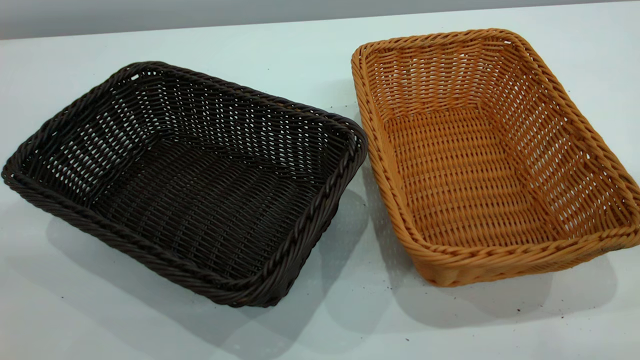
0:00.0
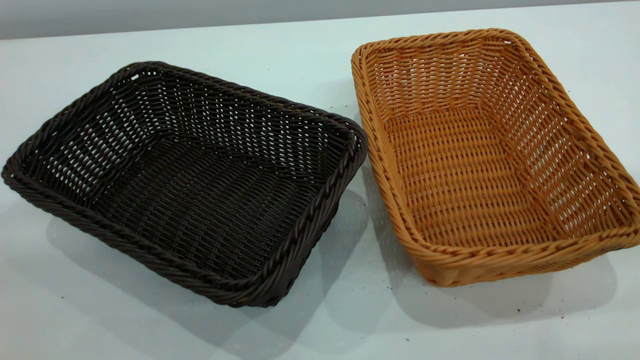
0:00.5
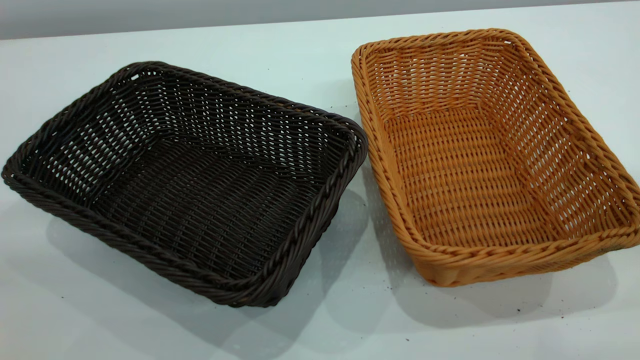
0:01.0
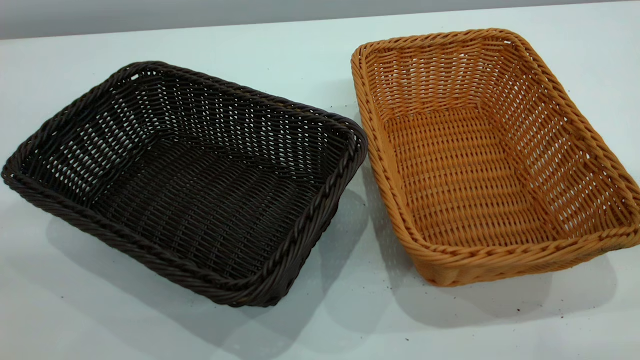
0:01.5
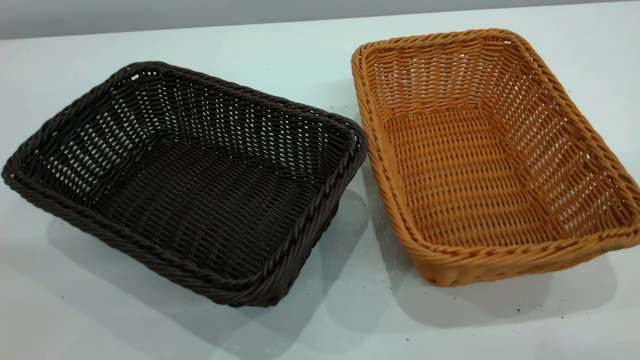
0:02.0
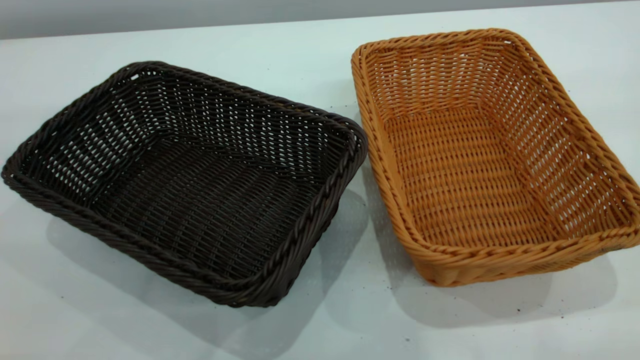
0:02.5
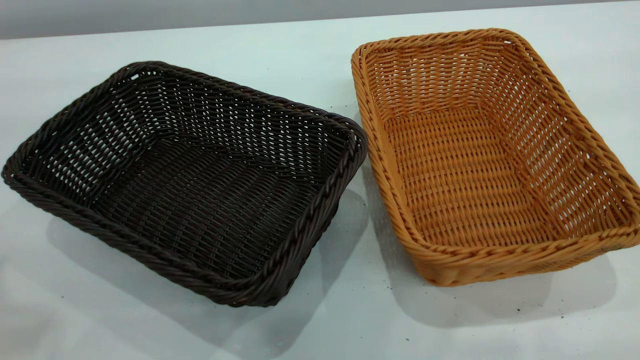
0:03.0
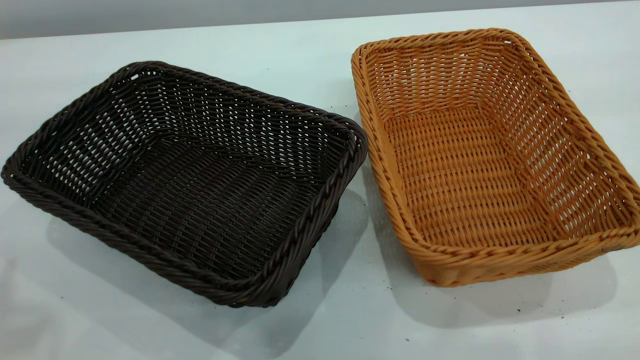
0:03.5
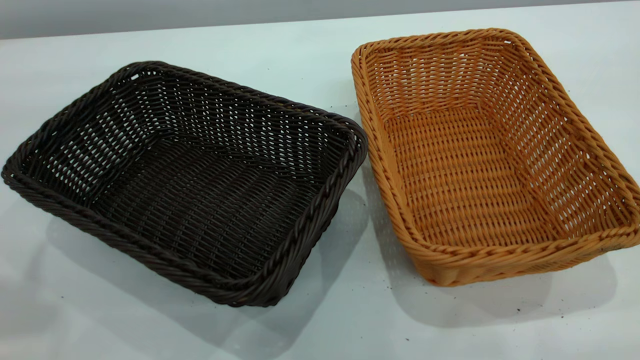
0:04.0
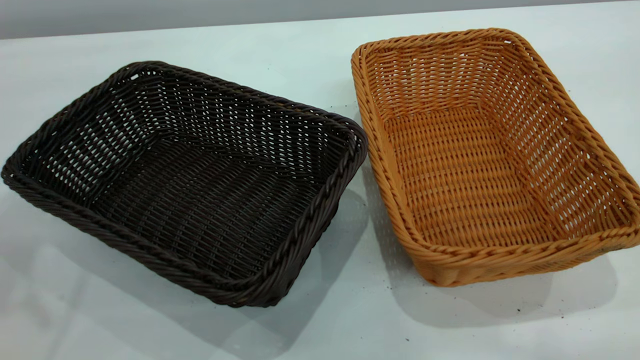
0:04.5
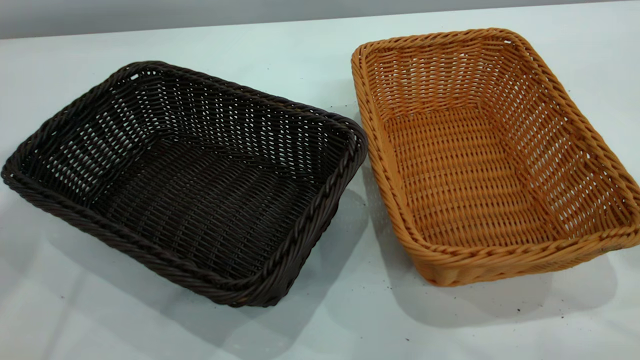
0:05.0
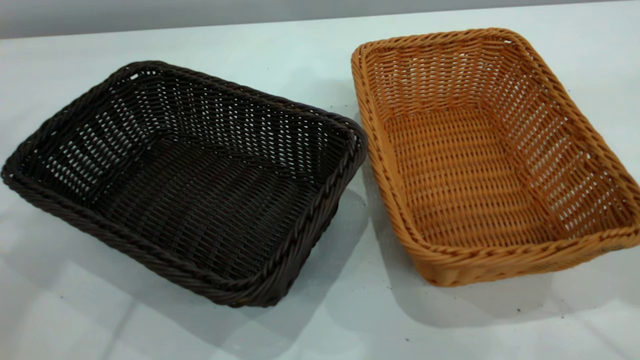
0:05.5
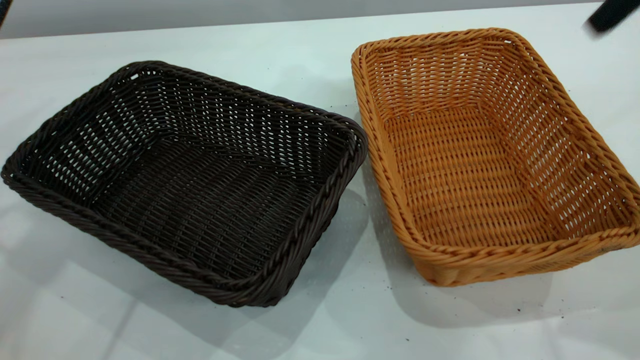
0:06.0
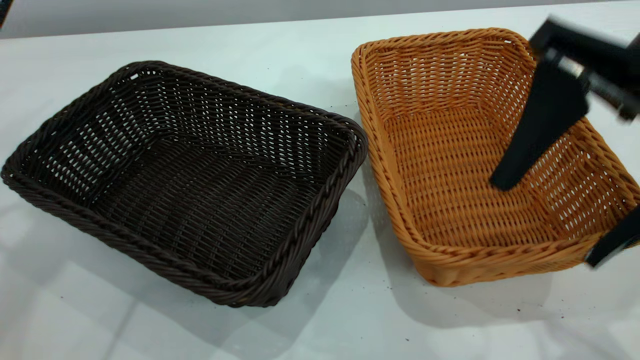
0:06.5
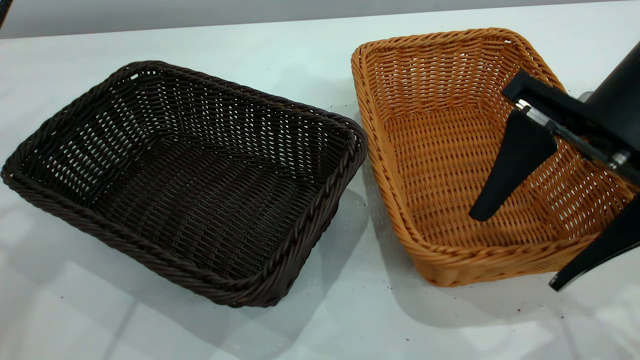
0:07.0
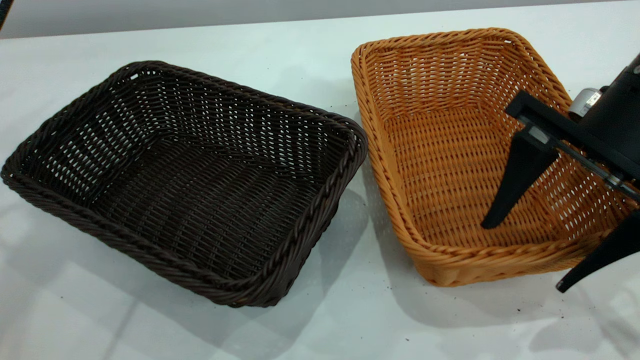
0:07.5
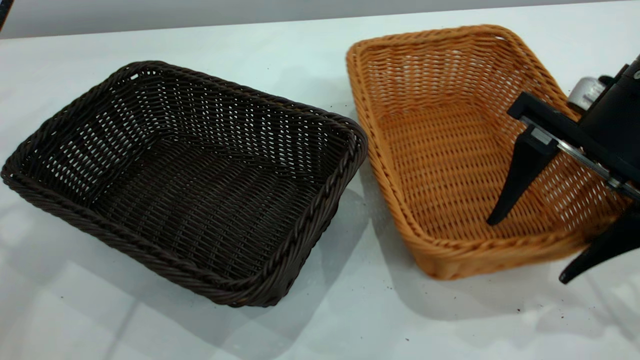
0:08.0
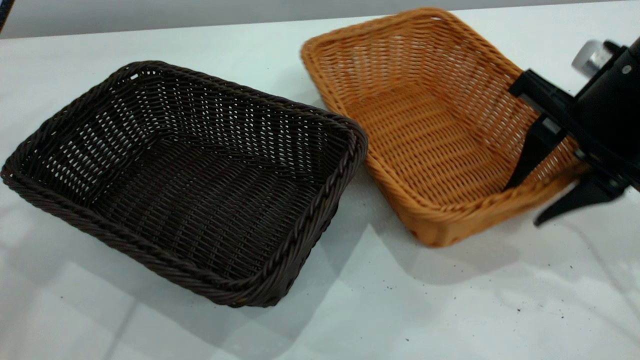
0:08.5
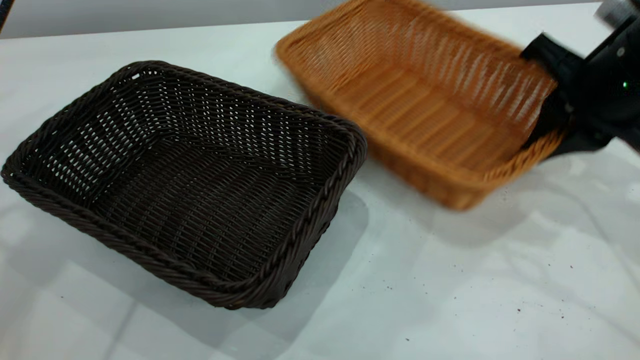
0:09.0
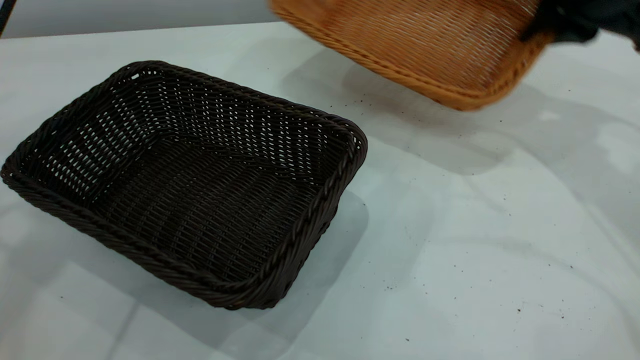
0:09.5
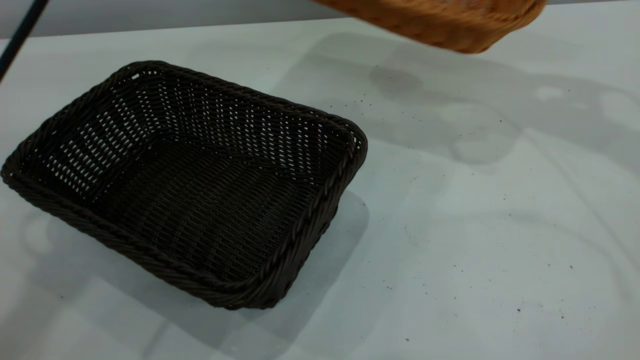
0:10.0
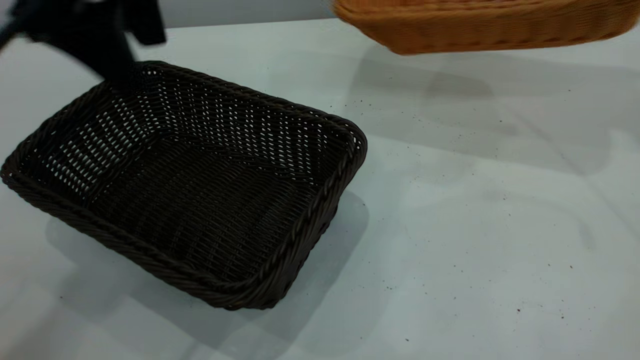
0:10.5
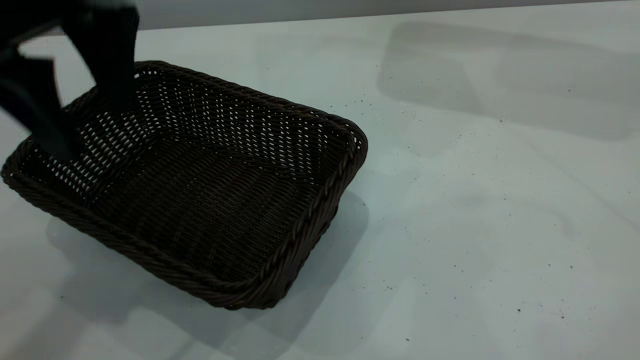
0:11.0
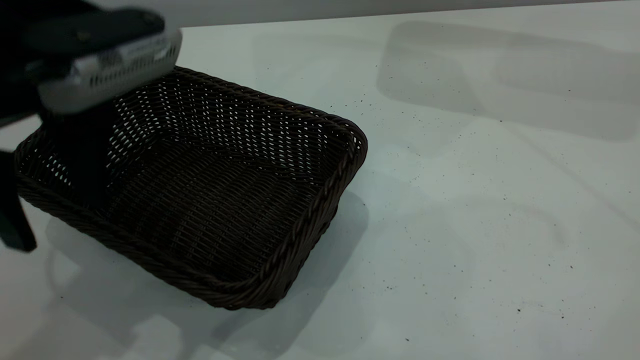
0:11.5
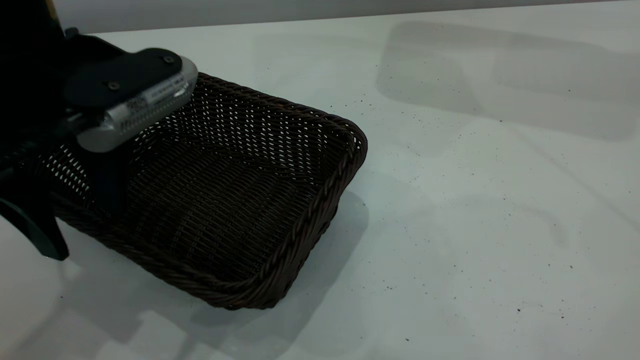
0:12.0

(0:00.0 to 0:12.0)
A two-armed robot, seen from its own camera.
Task of the whole recording: the left gripper grasp the black basket and place it in the center of the table, the right gripper grasp the brown basket and place it inside the black one.
Step, 0:00.0 - 0:09.0: Pick up the light basket with the right gripper.
0:04.0 - 0:06.0: The left gripper shifts about 25 cm forward. The right gripper heads downward, forward and to the left, covering approximately 15 cm.
0:06.0 - 0:08.0: The right gripper moves downward, some 15 cm.
0:08.0 - 0:10.0: The right gripper travels forward, upward and to the right by some 20 cm, and closes, while the left gripper goes approximately 5 cm to the right.
0:10.0 - 0:12.0: The right gripper heads upward, covering some 15 cm, while the left gripper travels backward and downward by roughly 15 cm.

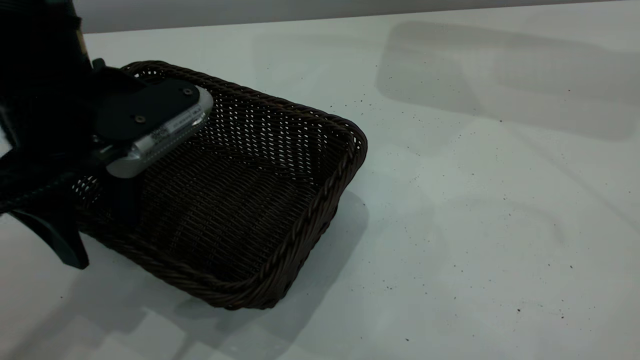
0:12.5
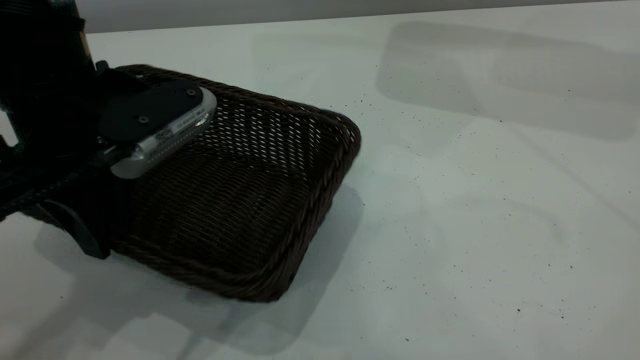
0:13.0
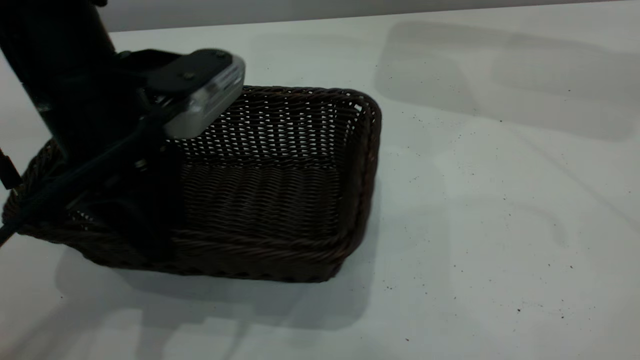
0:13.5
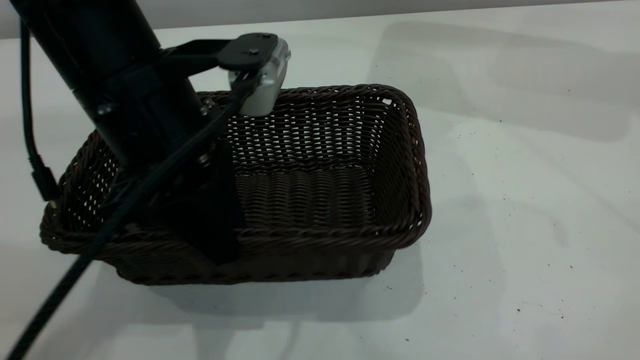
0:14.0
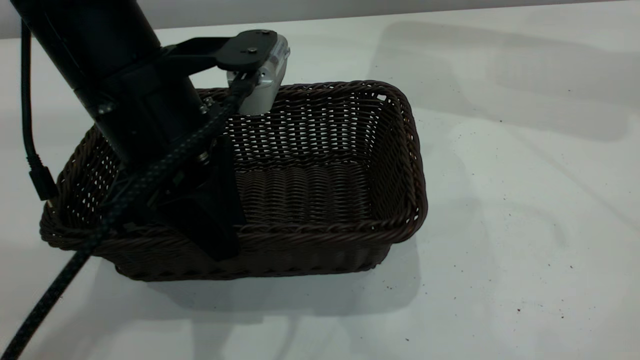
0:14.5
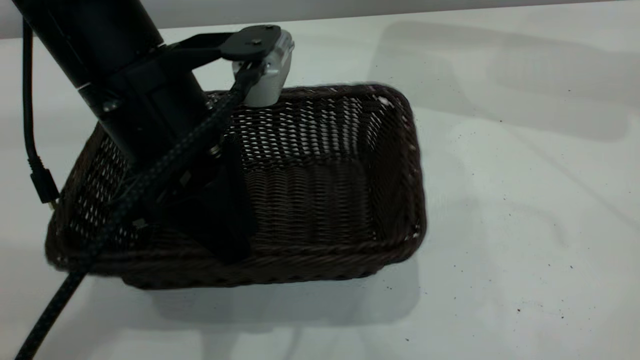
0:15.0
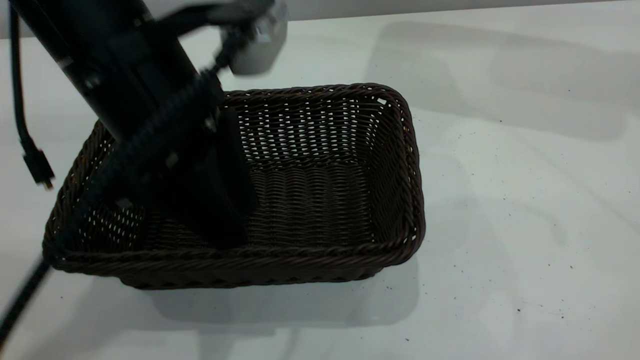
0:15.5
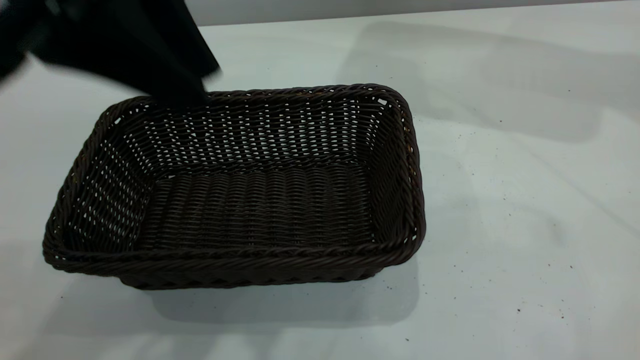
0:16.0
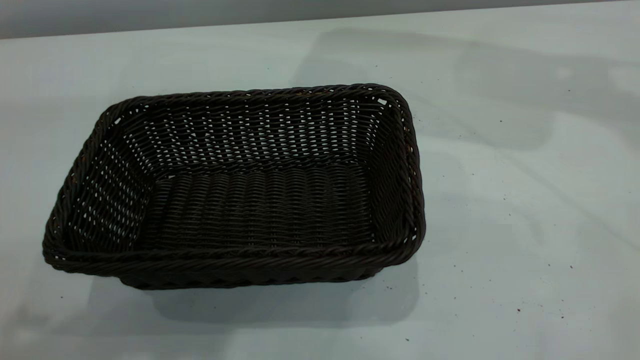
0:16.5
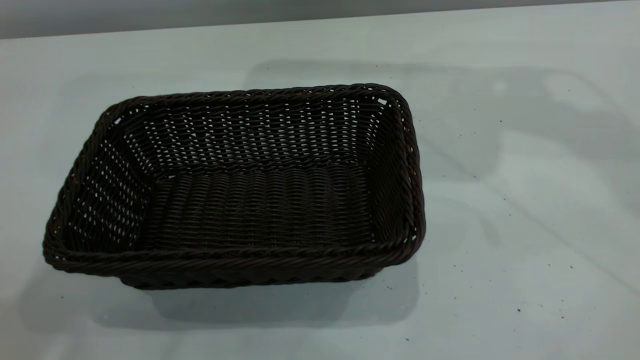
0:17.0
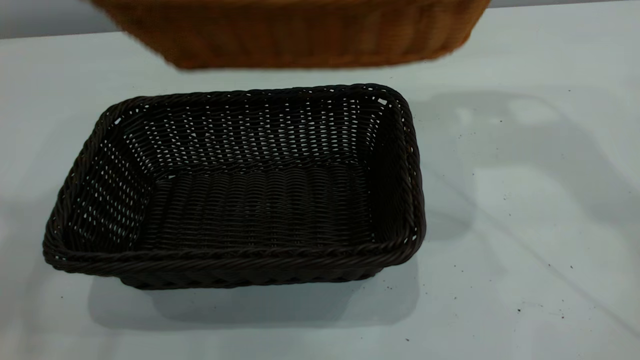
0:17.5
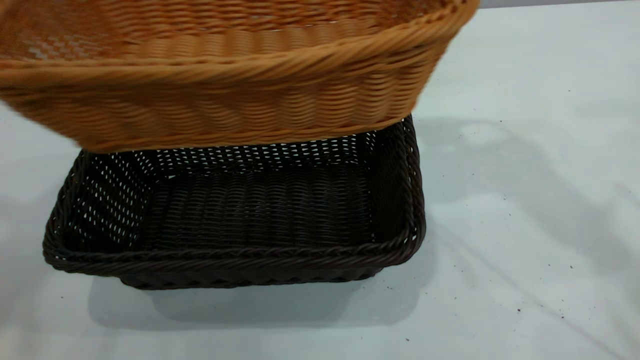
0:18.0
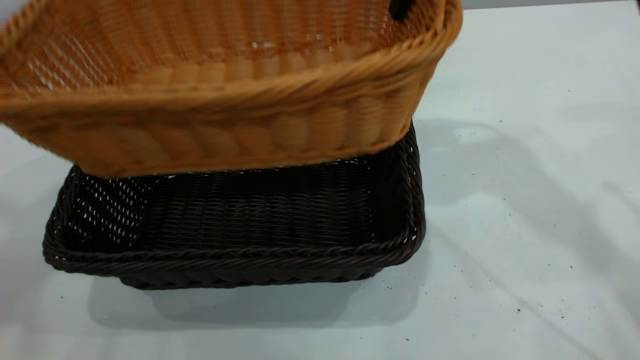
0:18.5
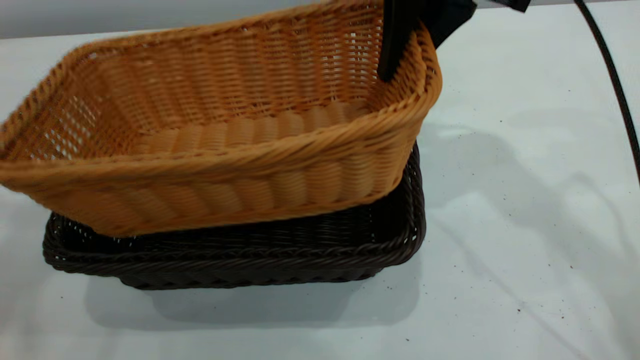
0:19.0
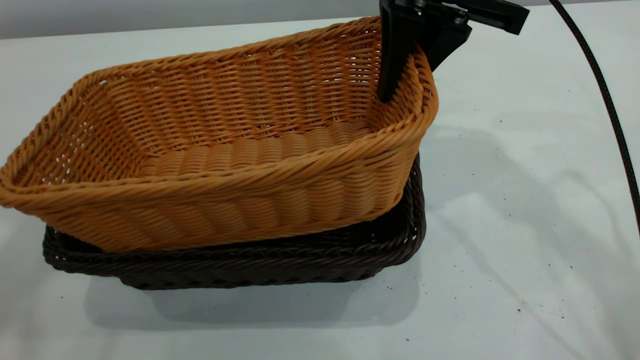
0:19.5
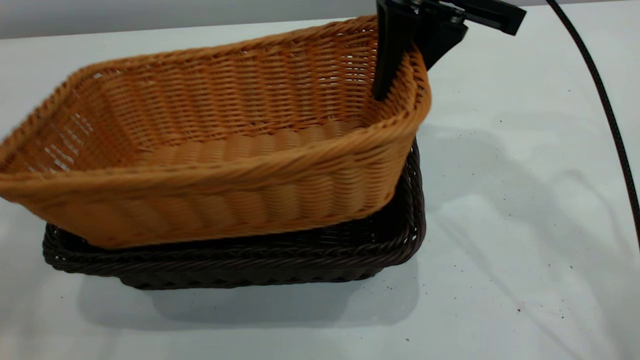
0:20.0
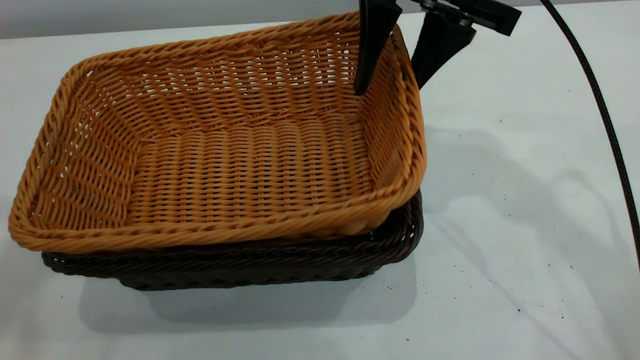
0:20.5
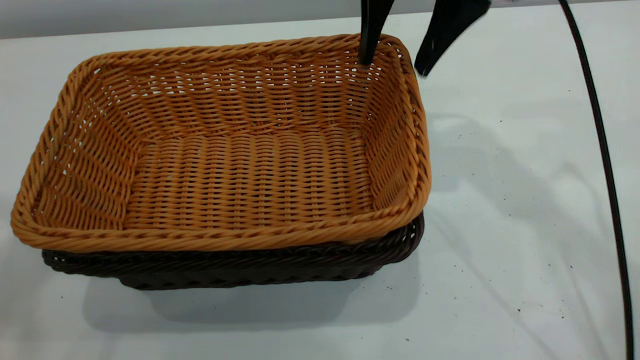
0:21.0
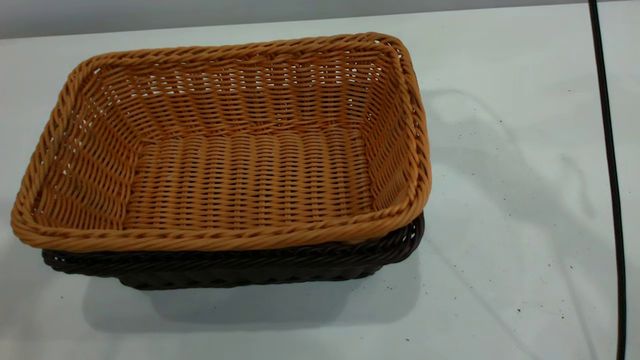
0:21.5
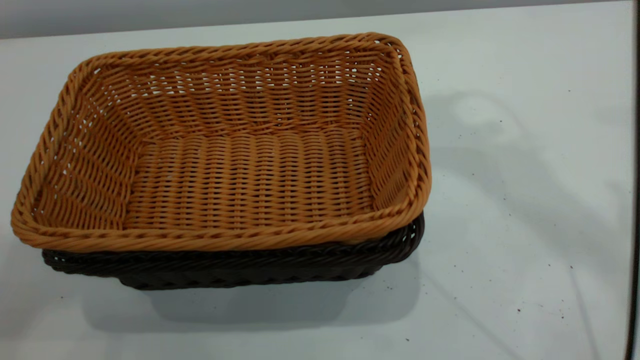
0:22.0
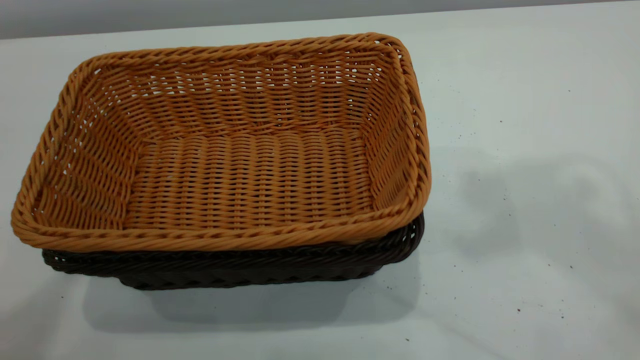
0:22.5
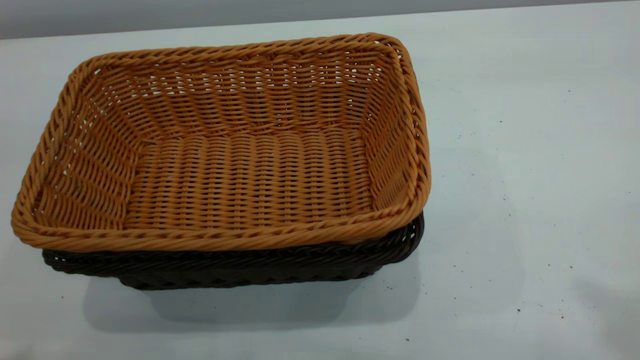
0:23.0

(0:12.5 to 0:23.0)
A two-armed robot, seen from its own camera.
Task of the whole recording: the left gripper grasp the black basket and place it in the center of the table, the right gripper grasp the brown basket and place it inside the black one.
Step, 0:12.5 - 0:15.5: Move the dark basket to the center of view.
Step, 0:16.0 - 0:21.0: Place the light basket on the dark basket.
0:12.5 - 0:14.5: The left gripper shifts roughly 5 cm to the right, and closes its fingers.
0:14.5 - 0:16.5: The right gripper travels to the left by approximately 5 cm. Meanwhile the left gripper moves upward, roughly 20 cm.
0:16.5 - 0:19.0: The right gripper travels to the left and downward by some 25 cm, while the left gripper is displaced to the left and upward by about 15 cm.
0:19.0 - 0:21.0: The right gripper opens its fingers.
0:21.0 - 0:23.0: The right gripper travels upward, backward and to the right by some 40 cm, and closes its fingers. Meanwhile the left gripper heads backward, covering about 15 cm.
